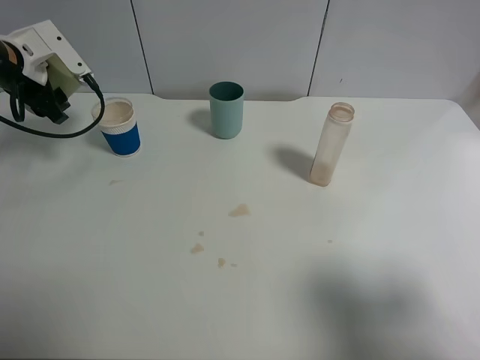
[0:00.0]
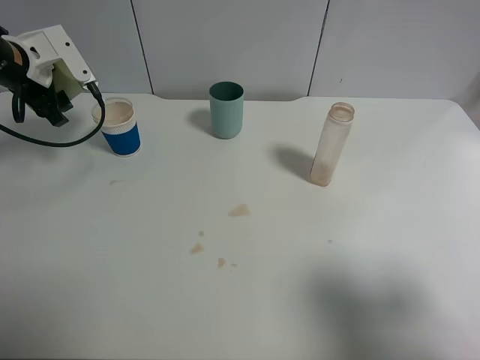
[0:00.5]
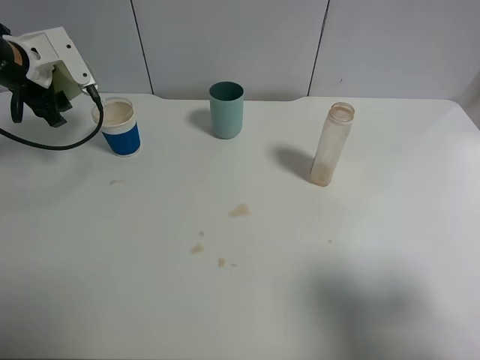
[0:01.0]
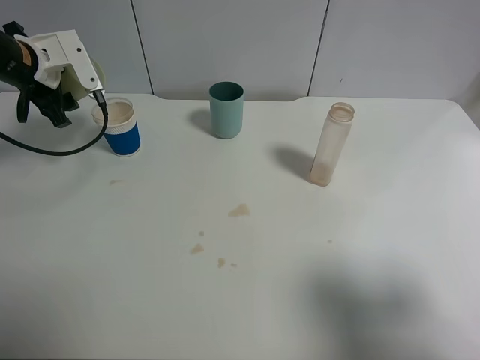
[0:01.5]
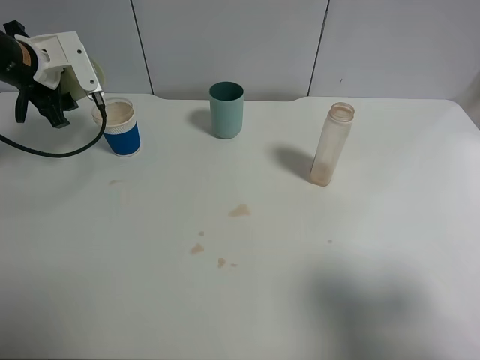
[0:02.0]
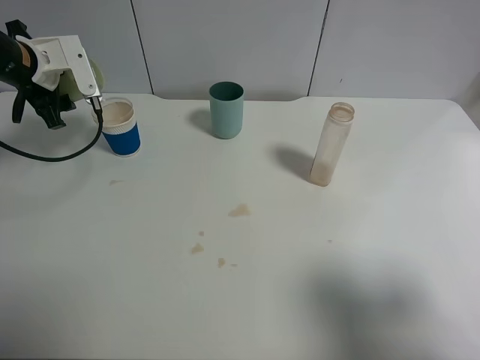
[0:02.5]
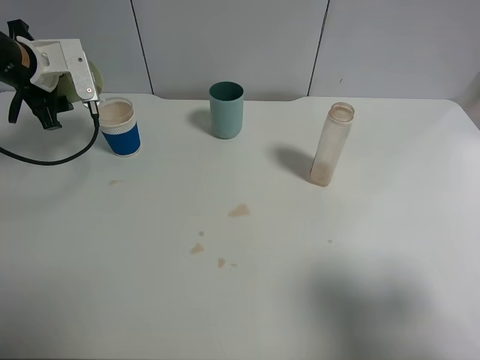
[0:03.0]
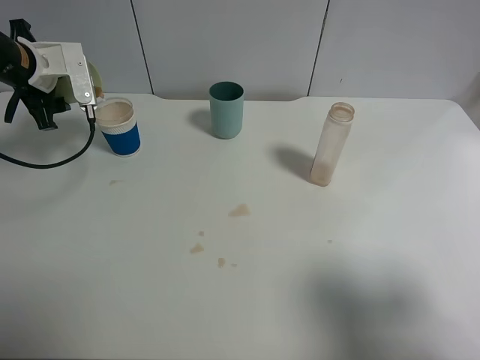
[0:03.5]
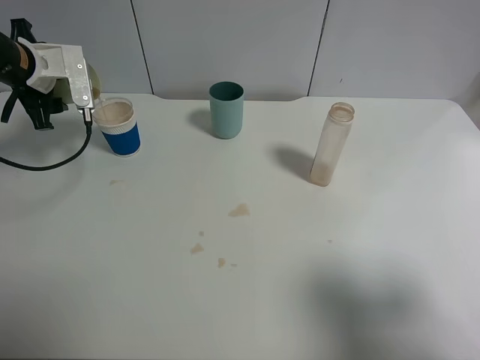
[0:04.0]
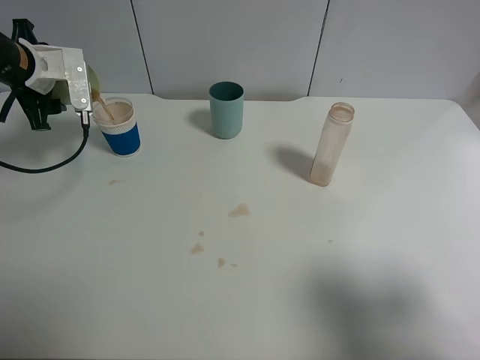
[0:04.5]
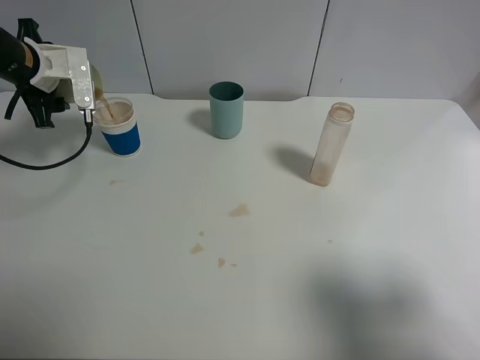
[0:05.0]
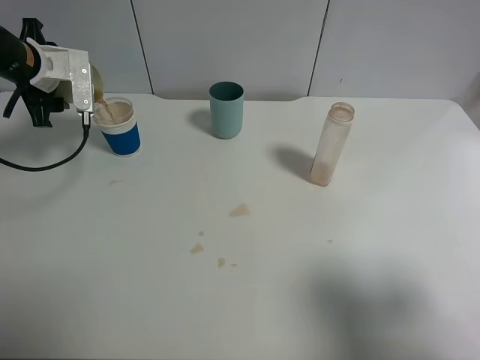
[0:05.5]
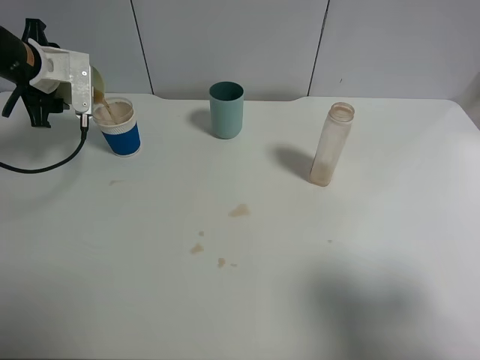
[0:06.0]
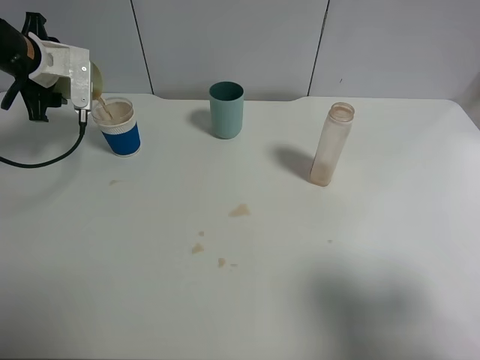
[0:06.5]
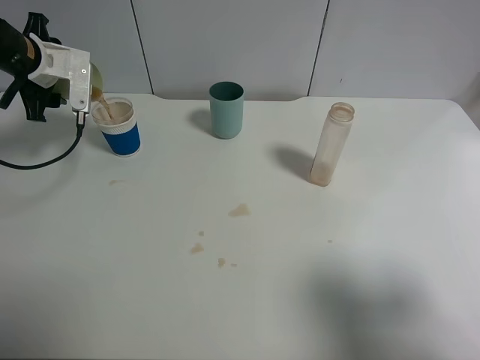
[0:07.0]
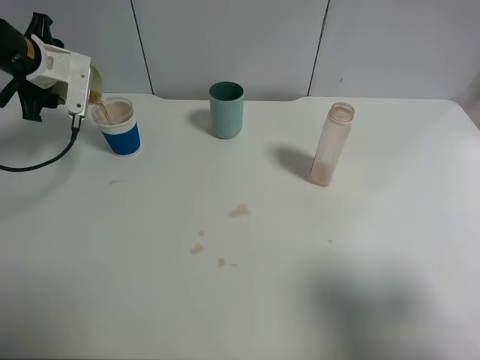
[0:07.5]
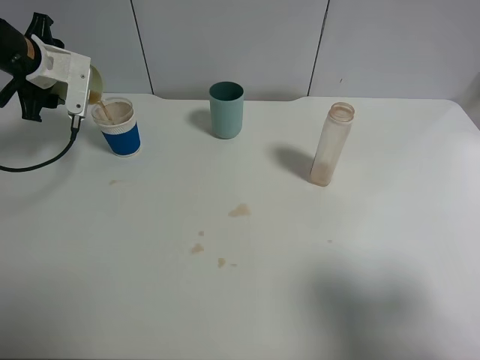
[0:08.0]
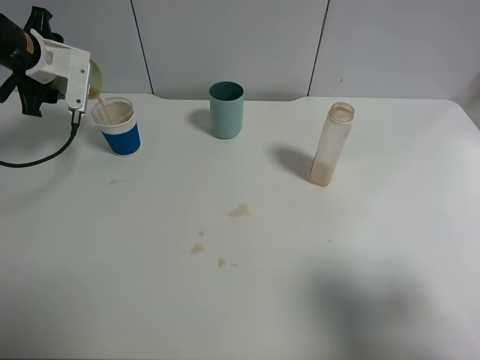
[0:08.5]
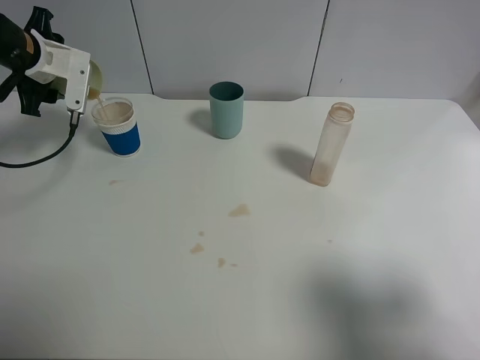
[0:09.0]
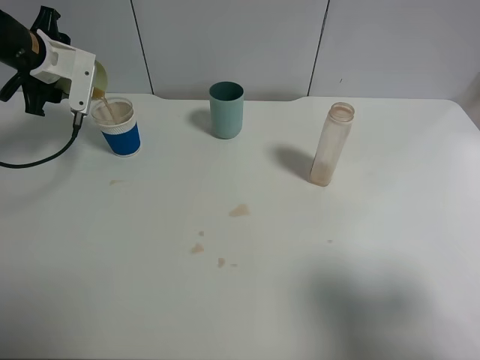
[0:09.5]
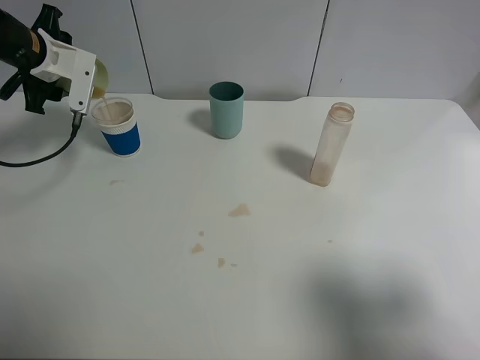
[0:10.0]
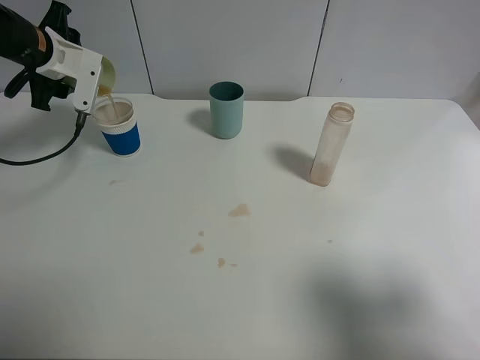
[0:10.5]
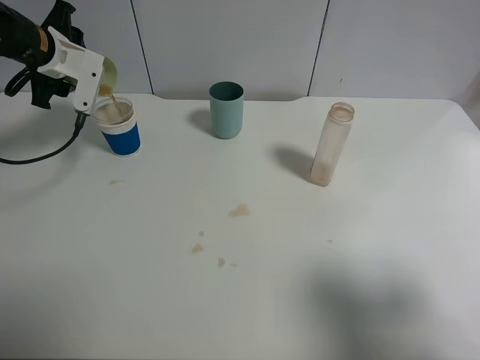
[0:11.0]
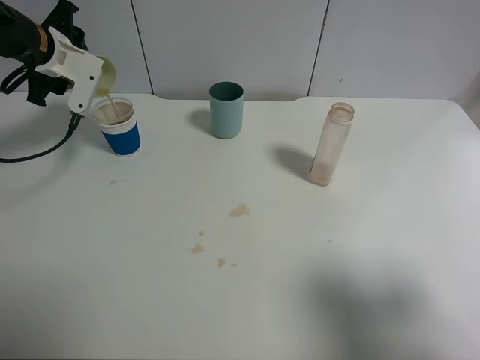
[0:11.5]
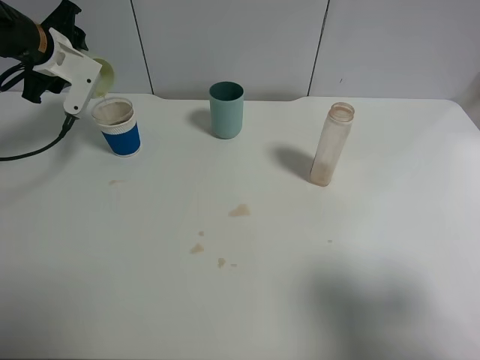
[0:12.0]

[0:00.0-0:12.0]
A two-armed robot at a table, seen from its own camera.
Task of the whole recording: use a clamp to hold the bottle of the drink, pour the beverage into a random cup, then clamp the cup containing the drink and pour the drink into another random cup.
0:00.0 to 0:02.0: The grippers move only a little.
0:02.0 to 0:04.0: The grippers make only small movements.
0:04.0 to 0:08.0: The grippers move only a little.
0:08.0 to 0:10.0: There are only small adjustments of the grippers.
0:10.0 to 0:12.0: The grippers make only small movements.

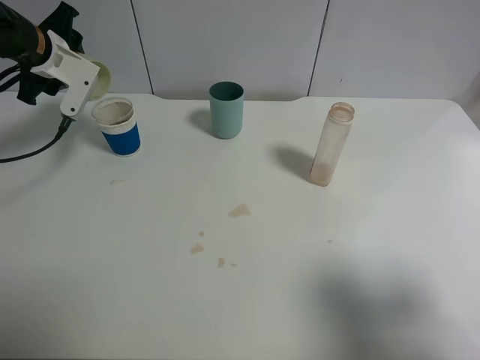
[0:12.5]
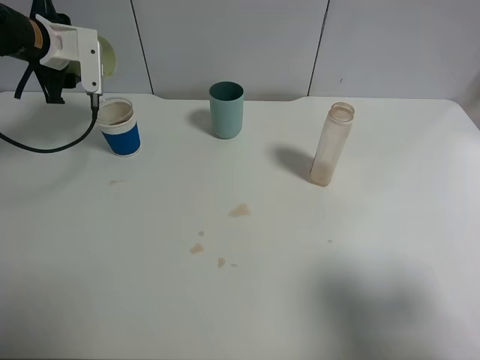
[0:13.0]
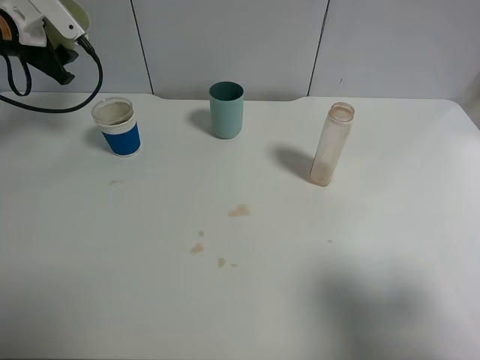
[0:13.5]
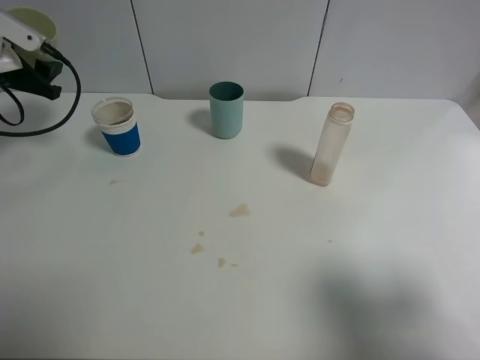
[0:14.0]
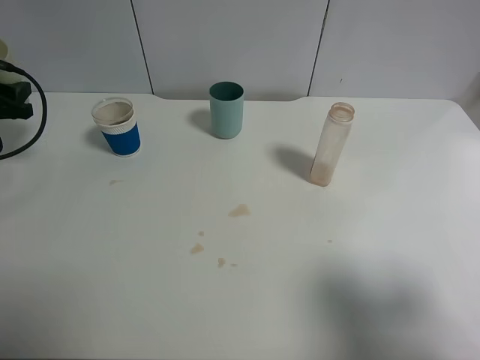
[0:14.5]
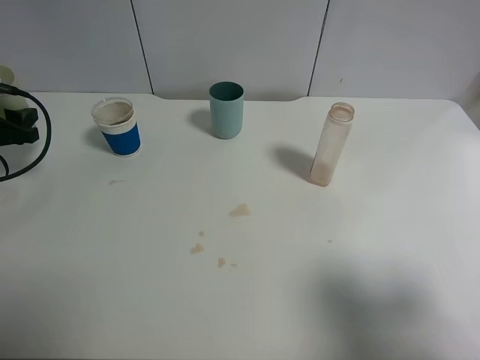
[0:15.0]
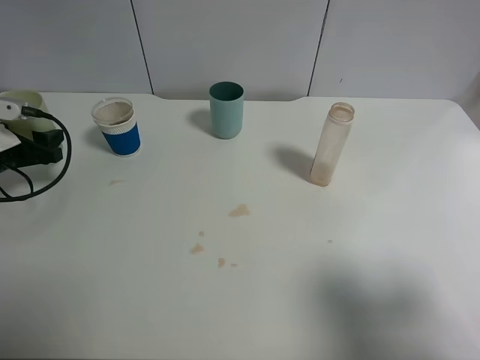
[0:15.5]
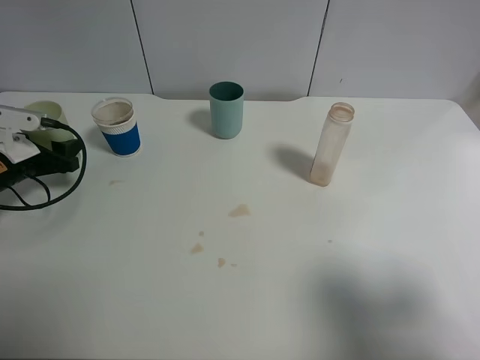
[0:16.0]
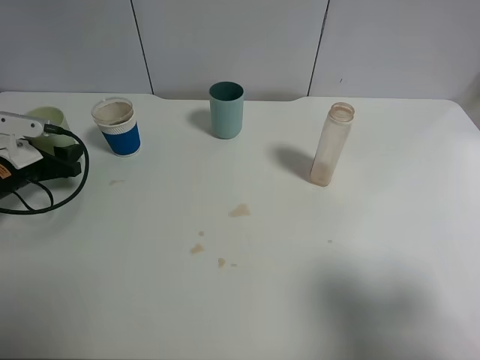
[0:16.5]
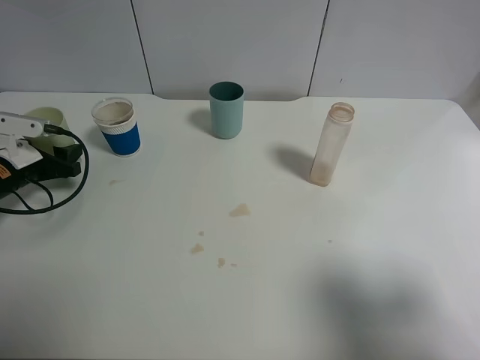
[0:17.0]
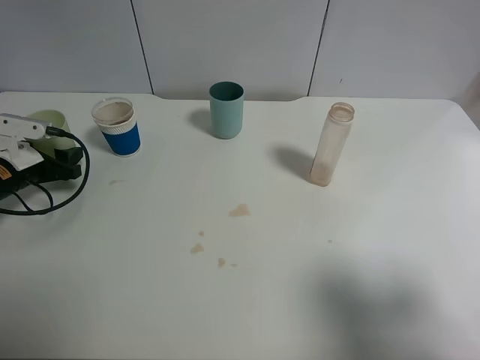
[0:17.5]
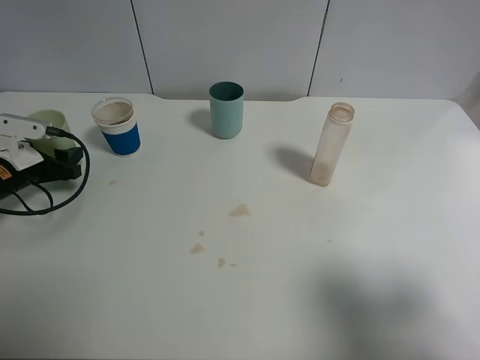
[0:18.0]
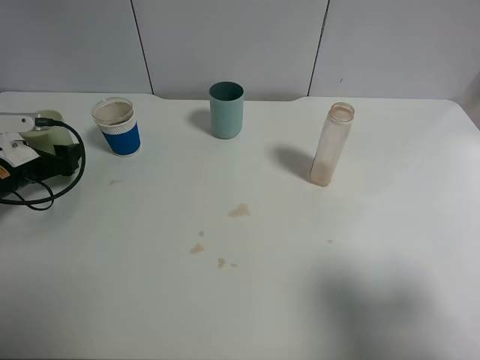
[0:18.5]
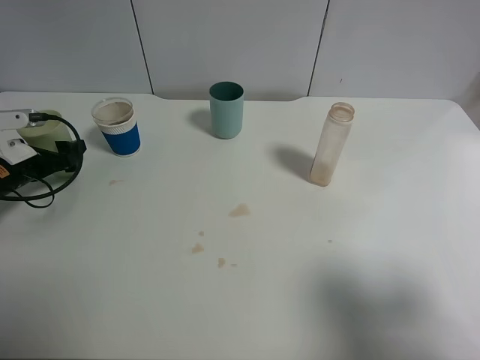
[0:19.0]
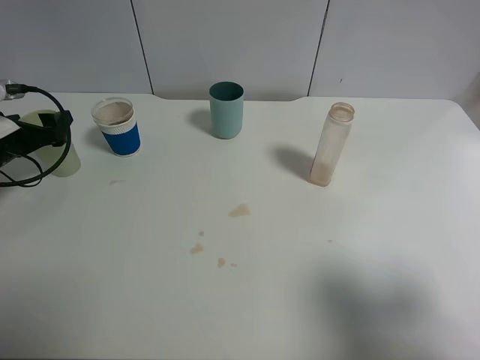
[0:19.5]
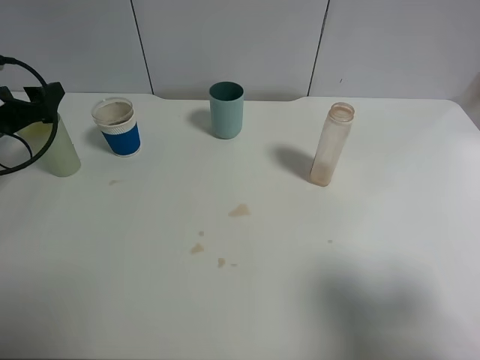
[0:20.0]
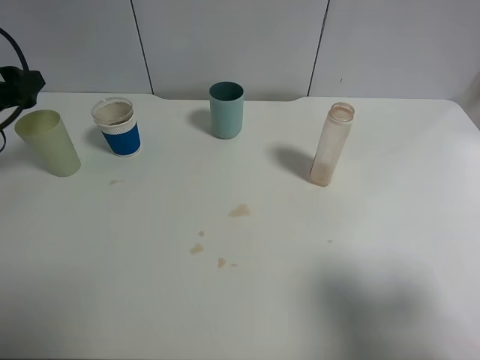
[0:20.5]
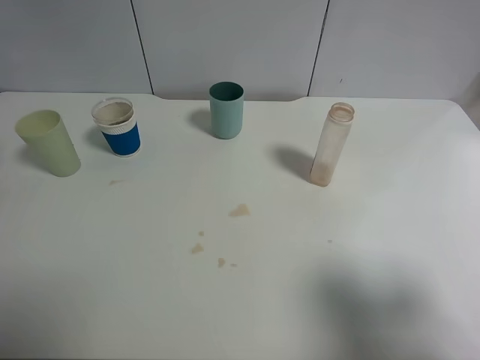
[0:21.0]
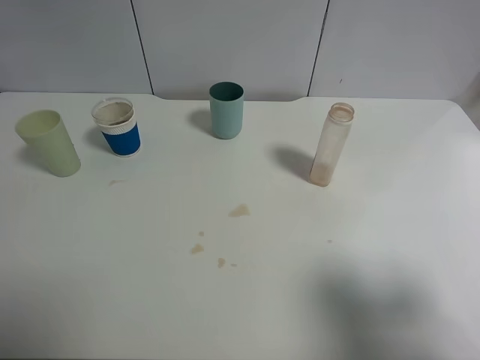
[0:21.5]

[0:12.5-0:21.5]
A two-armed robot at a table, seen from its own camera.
Task of the whole recording: use a clamp to hold the bottle of the drink, pour the beverage into a random cup, then clamp the cup containing the drink and pour the drink into another random cup.
0:12.5 to 0:14.5: The left gripper shifts some 15 cm to the left, backward and downward.
0:14.5 to 0:17.0: The left gripper heads downward, covering some 10 cm.
0:17.0 to 0:19.5: The left gripper opens its fingers.
0:19.5 to 0:21.5: The left gripper shifts roughly 25 cm upward and backward.
